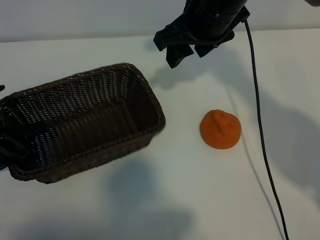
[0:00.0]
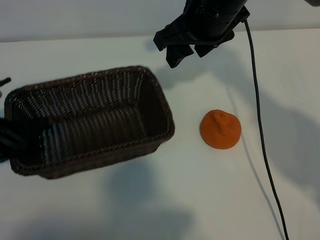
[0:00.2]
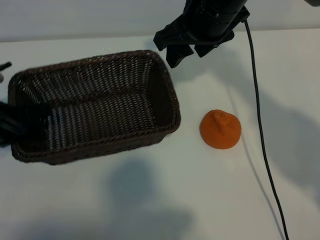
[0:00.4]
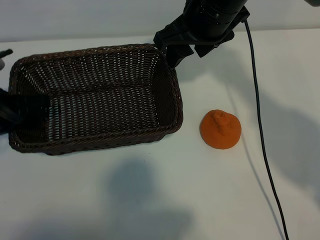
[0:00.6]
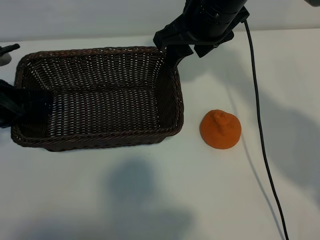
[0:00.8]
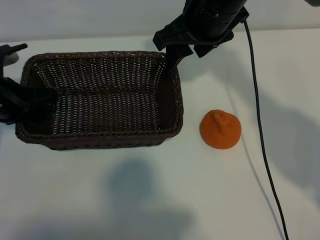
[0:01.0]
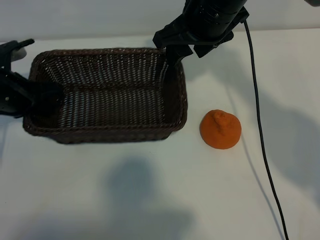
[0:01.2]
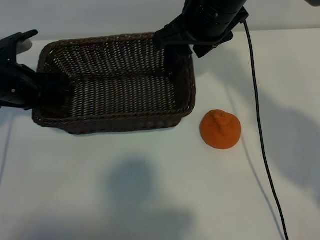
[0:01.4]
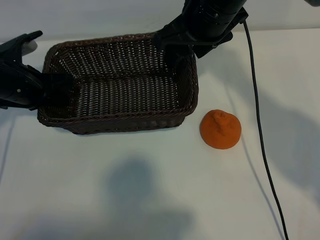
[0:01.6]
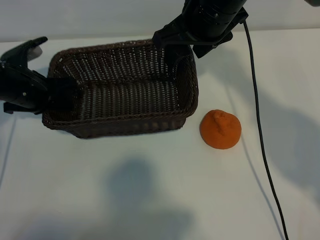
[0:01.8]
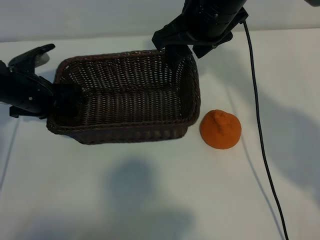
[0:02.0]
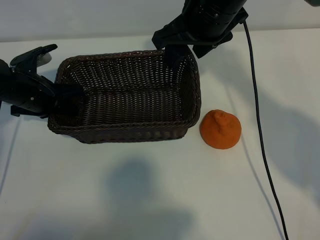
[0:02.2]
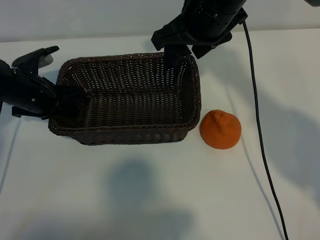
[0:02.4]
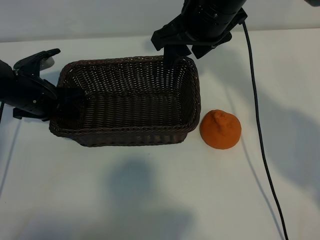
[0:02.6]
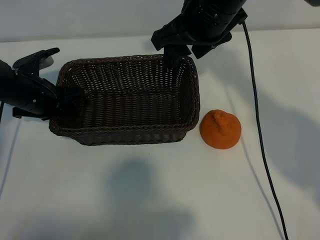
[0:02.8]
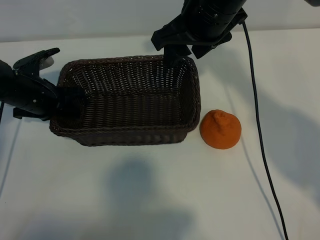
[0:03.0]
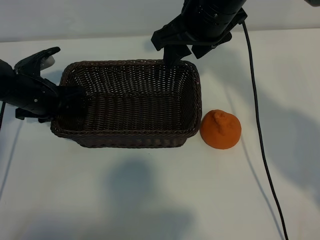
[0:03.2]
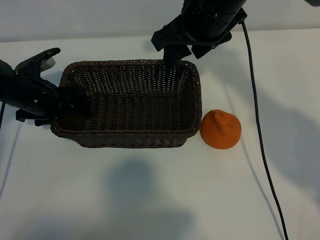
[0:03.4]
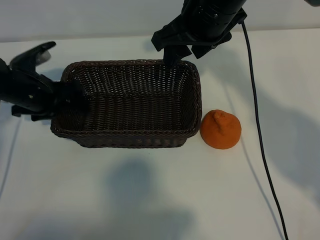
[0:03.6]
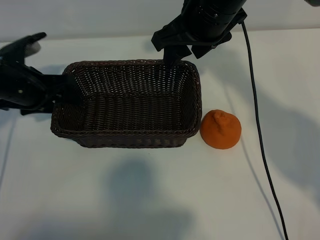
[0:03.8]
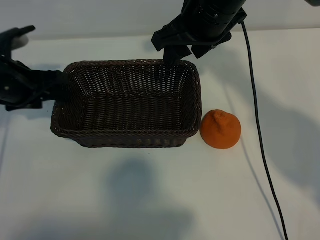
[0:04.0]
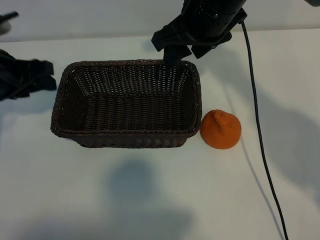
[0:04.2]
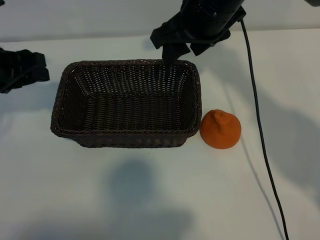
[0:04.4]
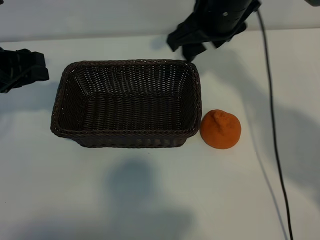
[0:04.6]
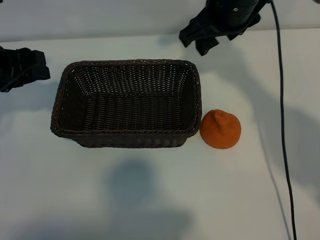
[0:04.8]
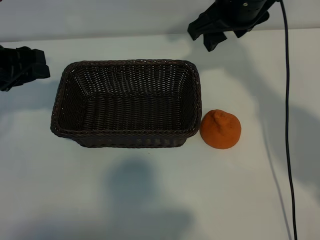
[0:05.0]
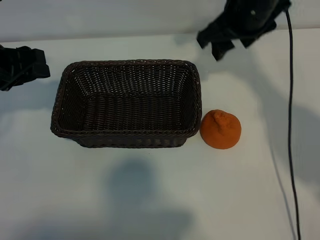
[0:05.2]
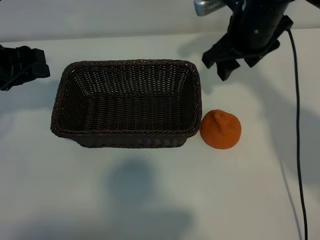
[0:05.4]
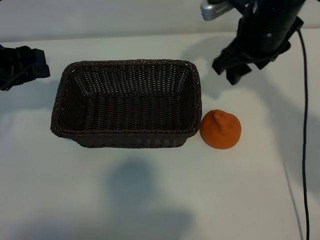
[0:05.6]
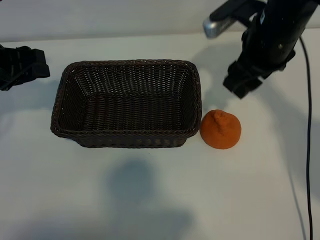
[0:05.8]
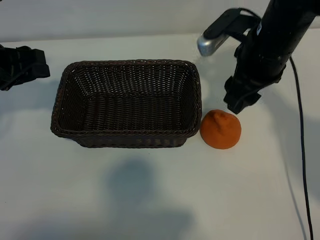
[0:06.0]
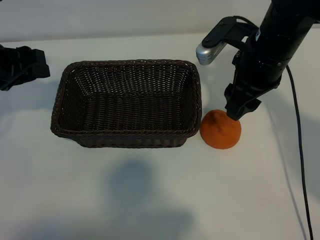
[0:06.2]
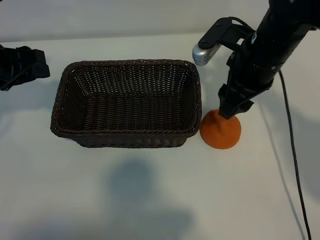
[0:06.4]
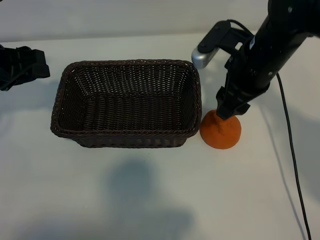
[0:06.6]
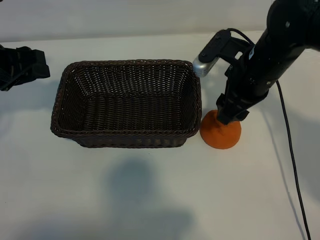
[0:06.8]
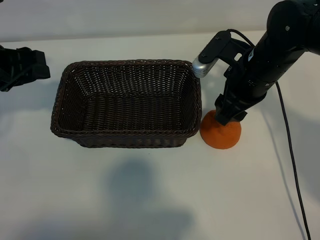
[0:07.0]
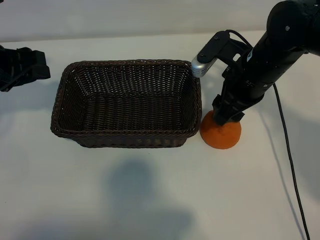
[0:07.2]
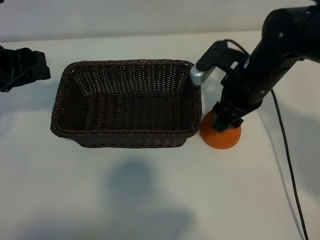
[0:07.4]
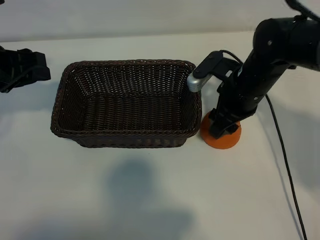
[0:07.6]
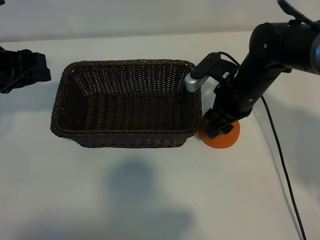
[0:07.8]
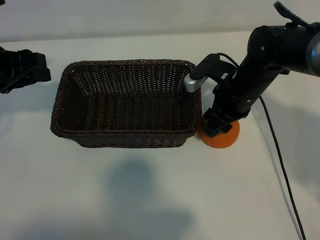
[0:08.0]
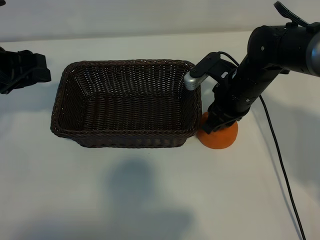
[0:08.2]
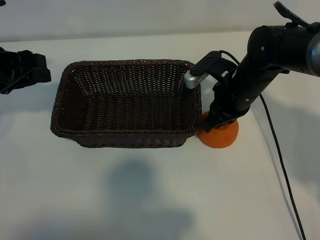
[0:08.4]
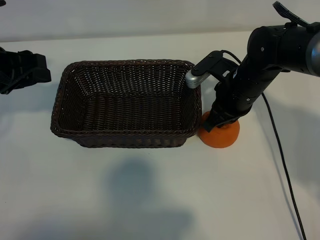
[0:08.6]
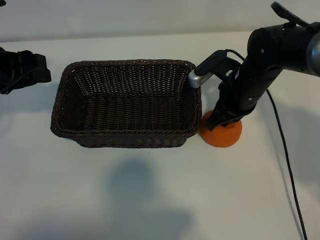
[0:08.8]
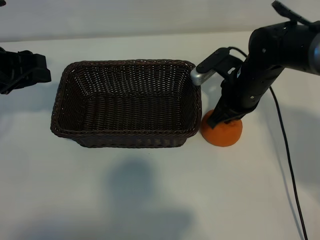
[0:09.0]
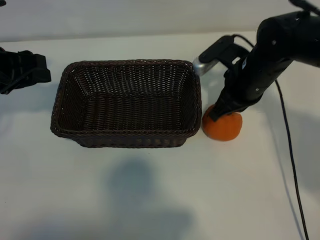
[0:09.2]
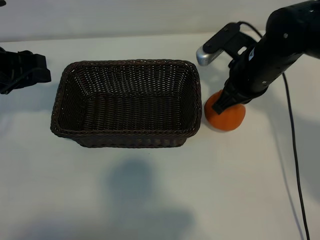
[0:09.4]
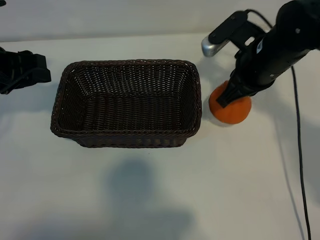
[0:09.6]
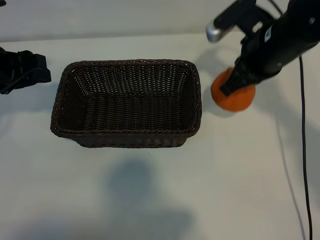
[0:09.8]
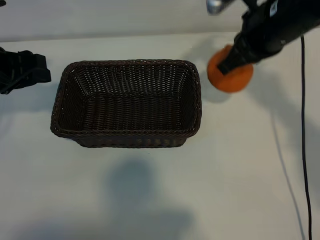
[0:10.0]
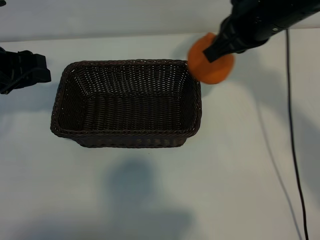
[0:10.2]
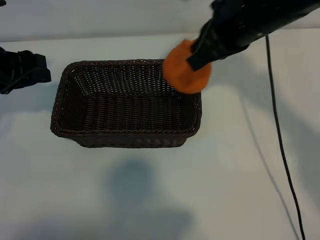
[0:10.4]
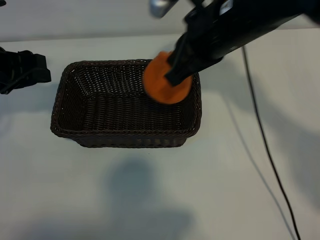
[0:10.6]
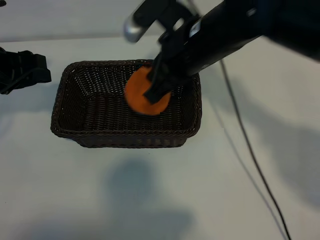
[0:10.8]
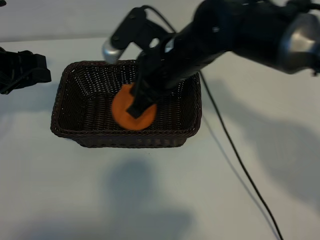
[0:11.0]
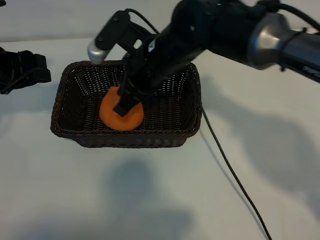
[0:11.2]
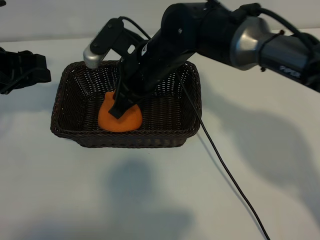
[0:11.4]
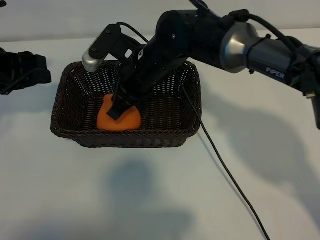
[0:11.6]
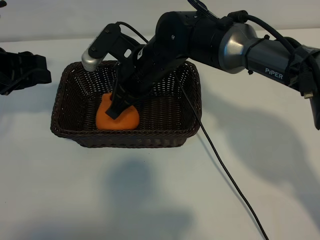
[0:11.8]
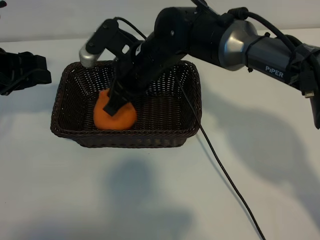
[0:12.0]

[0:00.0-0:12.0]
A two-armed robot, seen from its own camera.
Task of the whole recording: pick up the orange and put it into the basket.
Step, 0:00.0 to 0:03.0: Place the basket in the center of view with left gripper.
Step, 0:03.4 to 0:08.4: Grasp the orange with right gripper.

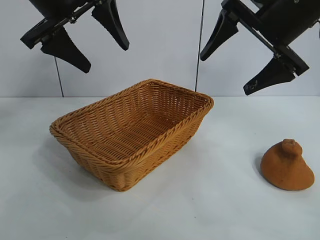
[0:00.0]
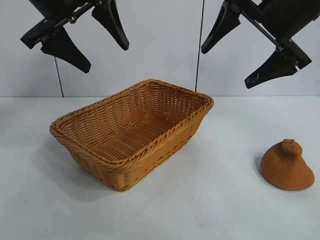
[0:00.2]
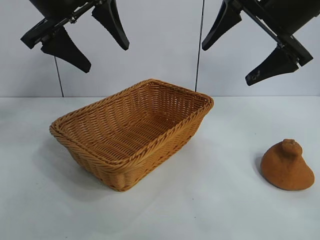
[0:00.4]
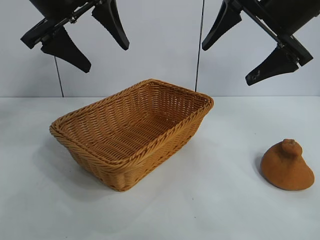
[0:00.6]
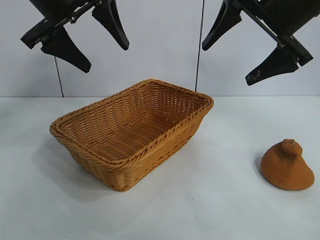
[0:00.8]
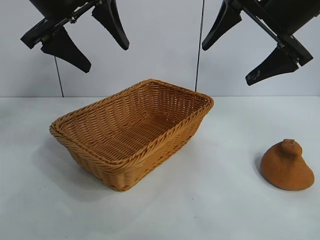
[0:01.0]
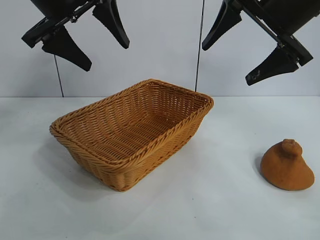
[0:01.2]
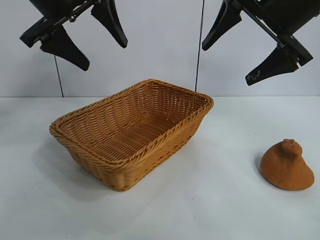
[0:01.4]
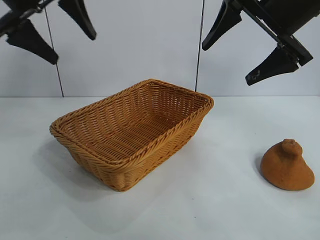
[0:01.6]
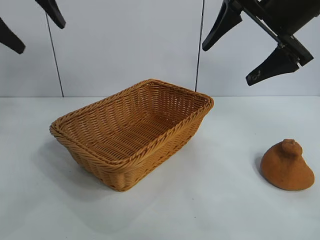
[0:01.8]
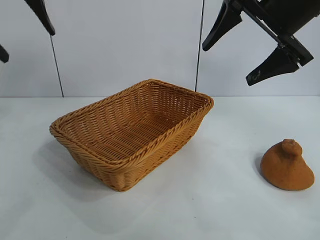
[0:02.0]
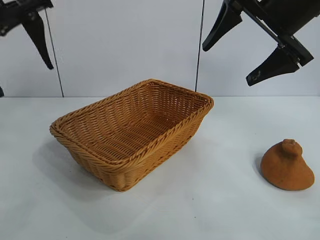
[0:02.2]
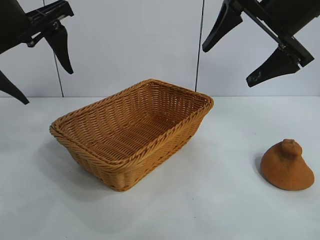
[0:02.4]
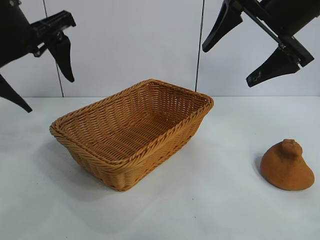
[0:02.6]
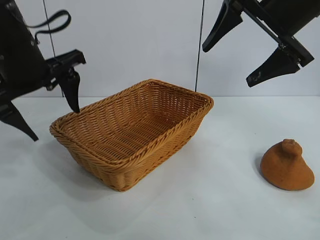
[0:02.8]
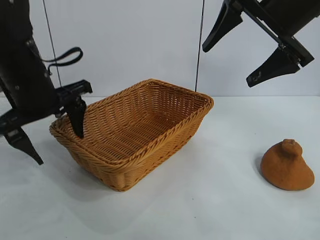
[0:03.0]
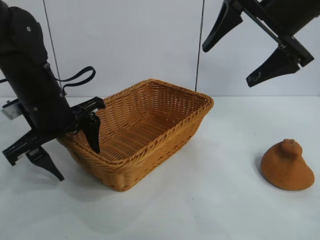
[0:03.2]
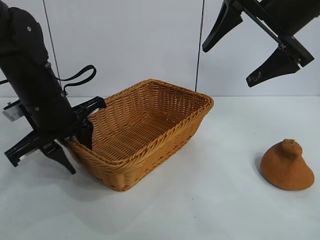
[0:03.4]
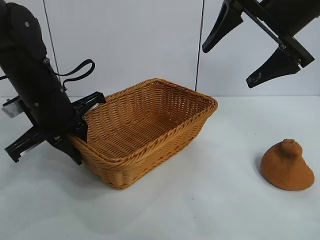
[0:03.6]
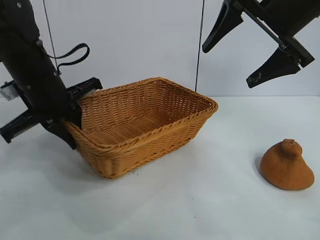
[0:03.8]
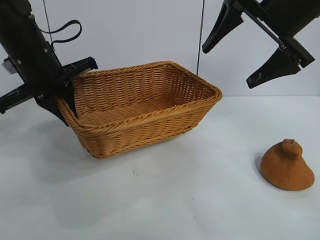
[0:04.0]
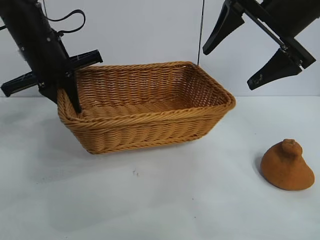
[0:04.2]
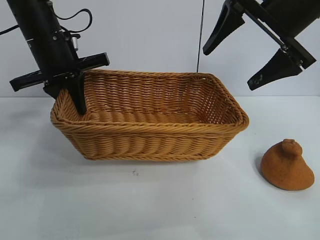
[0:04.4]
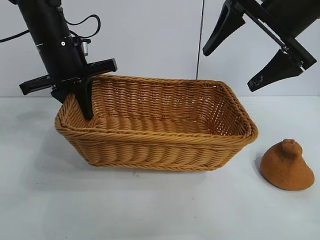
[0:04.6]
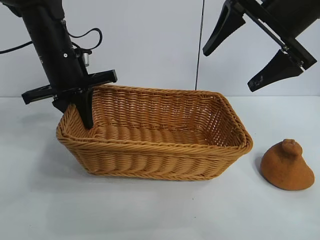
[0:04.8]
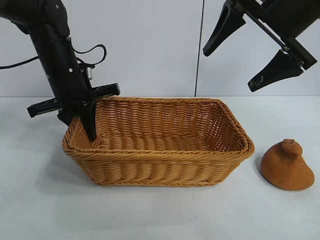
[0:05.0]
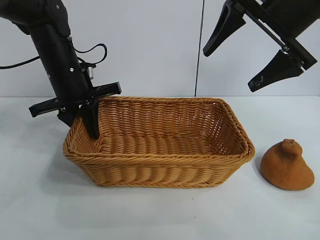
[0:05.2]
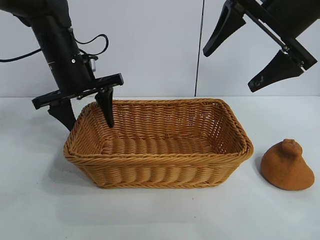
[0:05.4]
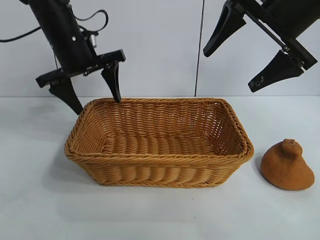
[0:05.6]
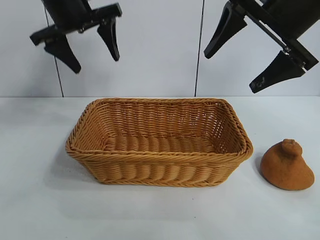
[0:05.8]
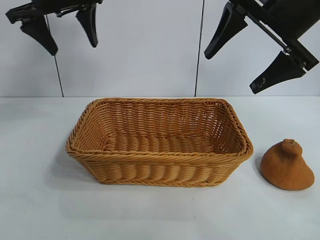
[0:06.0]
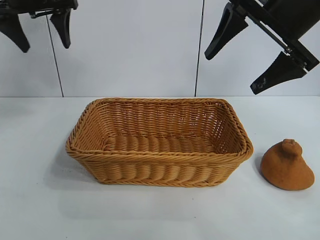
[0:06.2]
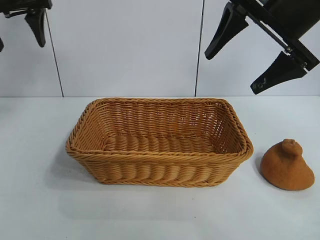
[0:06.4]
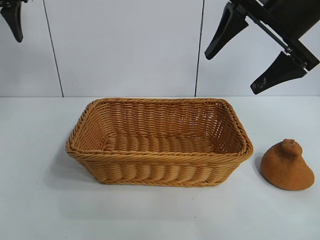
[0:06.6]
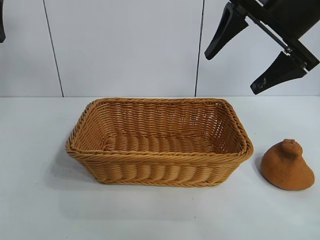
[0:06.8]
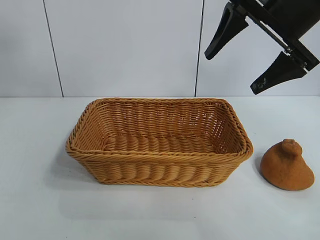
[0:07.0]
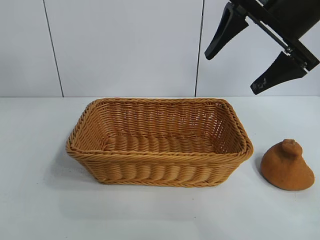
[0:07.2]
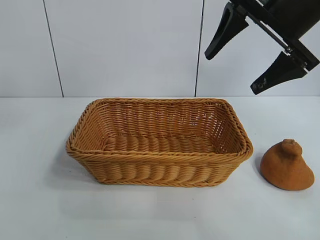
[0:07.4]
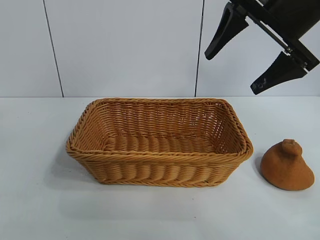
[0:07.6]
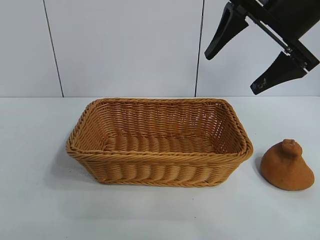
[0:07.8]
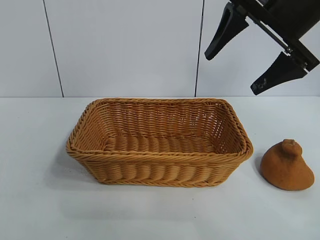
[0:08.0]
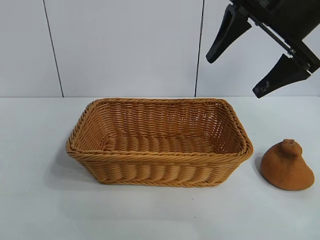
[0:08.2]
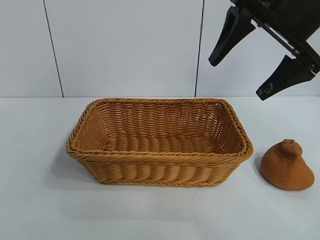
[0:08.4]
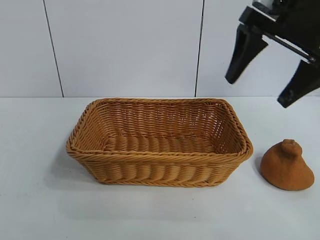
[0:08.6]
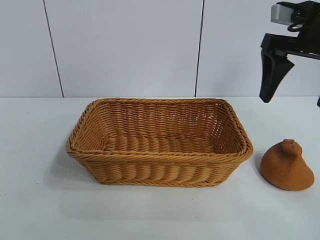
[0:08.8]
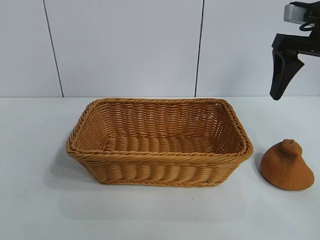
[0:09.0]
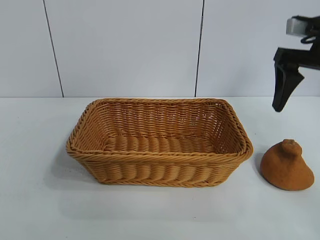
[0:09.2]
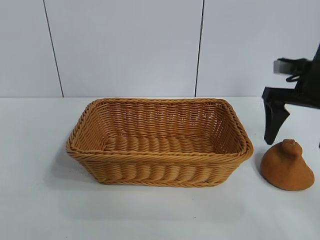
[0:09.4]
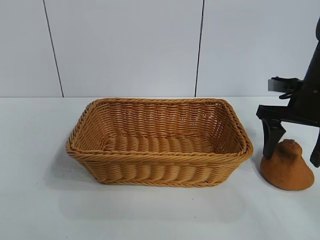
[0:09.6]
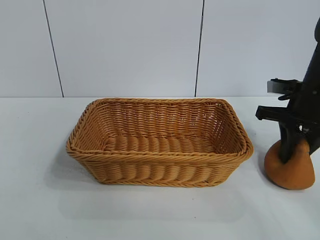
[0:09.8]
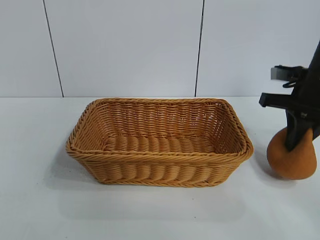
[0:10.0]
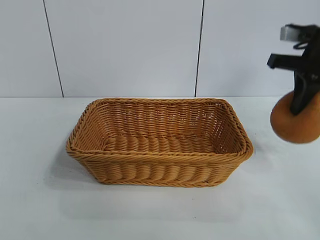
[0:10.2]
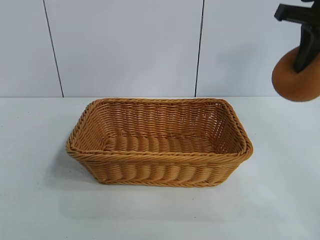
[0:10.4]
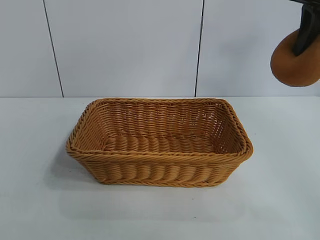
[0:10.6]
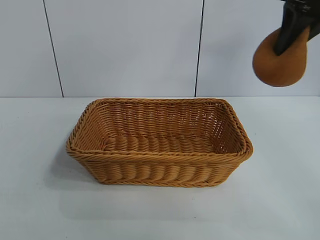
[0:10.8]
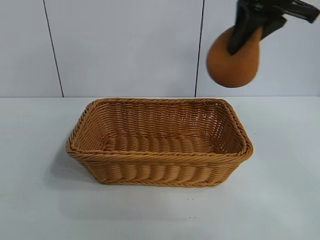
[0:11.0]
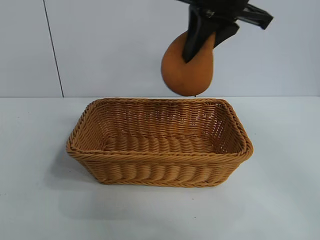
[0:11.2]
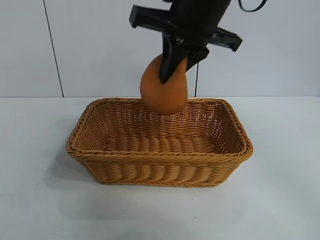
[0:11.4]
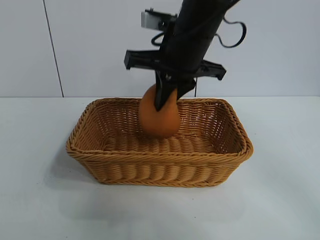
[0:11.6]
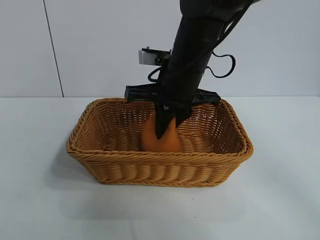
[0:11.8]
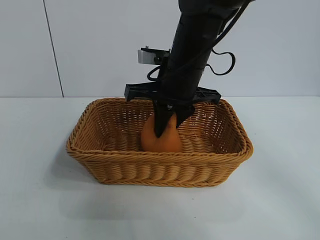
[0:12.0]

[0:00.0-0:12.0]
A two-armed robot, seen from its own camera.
Task of the whole recording: pick up the orange and put it into the basket.
Step, 0:00.0 to 0:03.4: Grasp the basket with left gripper.
Step, 0:03.8 to 0:05.4: Place the basket in the center of view with left gripper.
Step, 0:05.6 to 0:09.8: Grasp the orange with right gripper.
